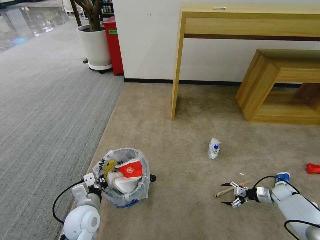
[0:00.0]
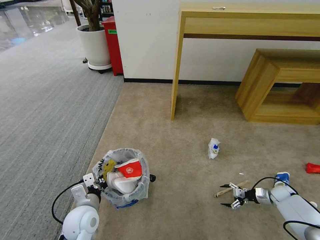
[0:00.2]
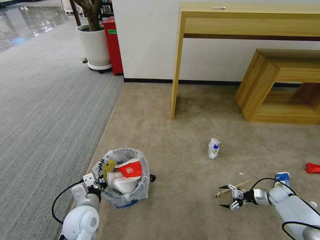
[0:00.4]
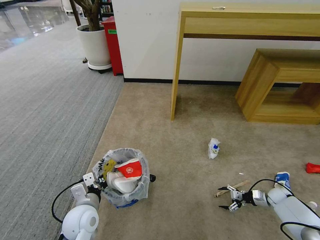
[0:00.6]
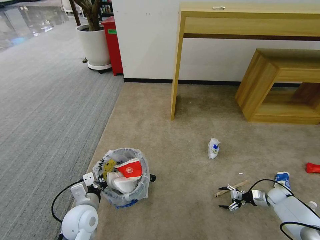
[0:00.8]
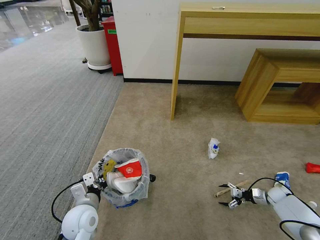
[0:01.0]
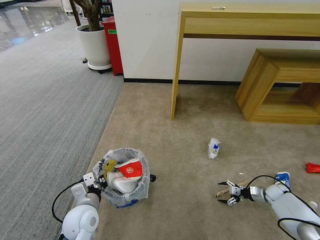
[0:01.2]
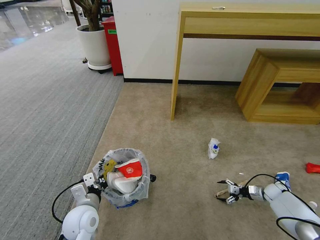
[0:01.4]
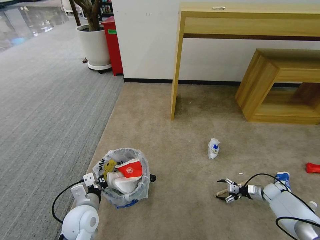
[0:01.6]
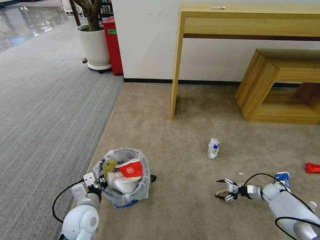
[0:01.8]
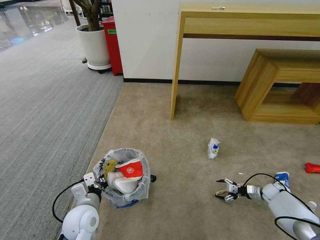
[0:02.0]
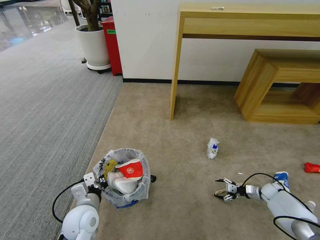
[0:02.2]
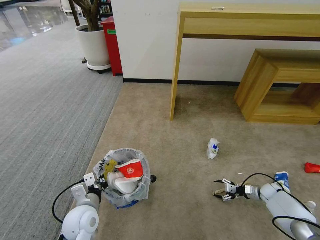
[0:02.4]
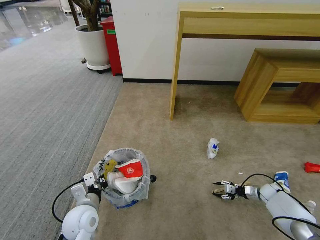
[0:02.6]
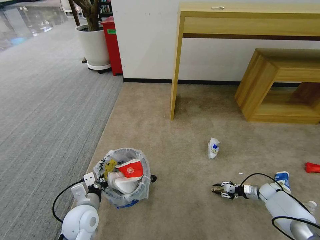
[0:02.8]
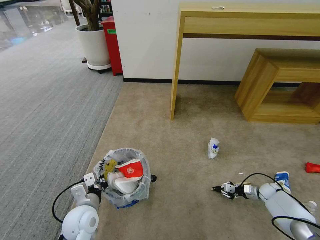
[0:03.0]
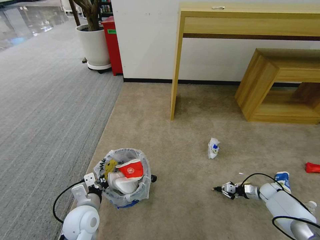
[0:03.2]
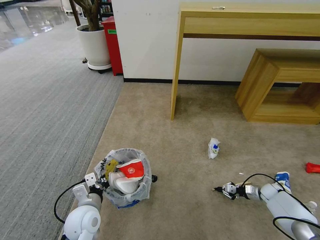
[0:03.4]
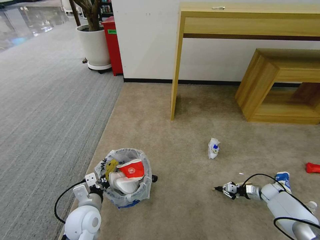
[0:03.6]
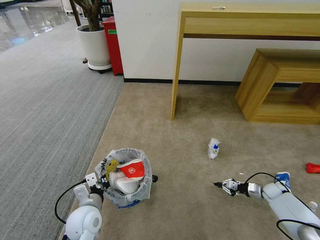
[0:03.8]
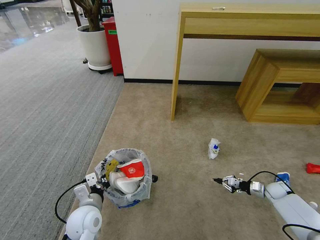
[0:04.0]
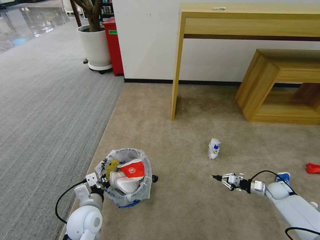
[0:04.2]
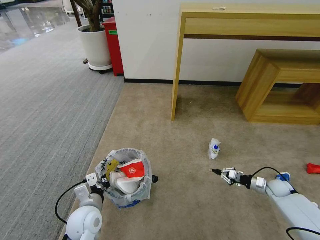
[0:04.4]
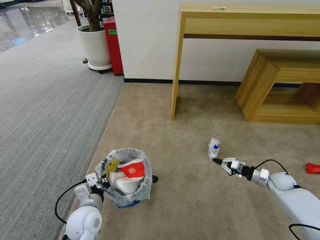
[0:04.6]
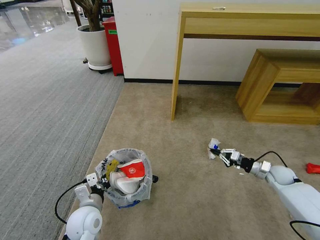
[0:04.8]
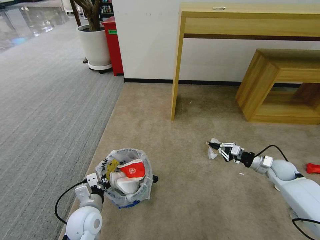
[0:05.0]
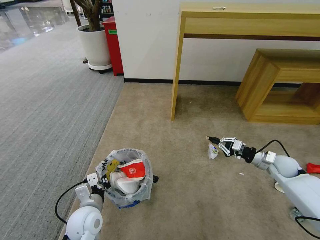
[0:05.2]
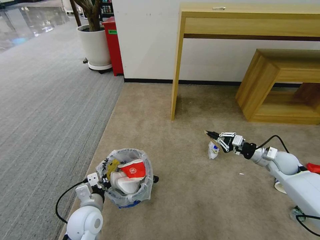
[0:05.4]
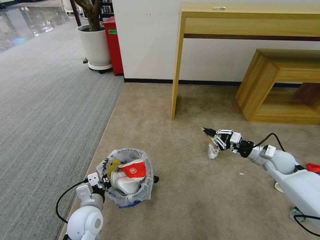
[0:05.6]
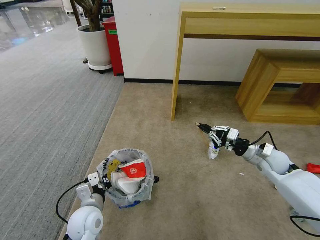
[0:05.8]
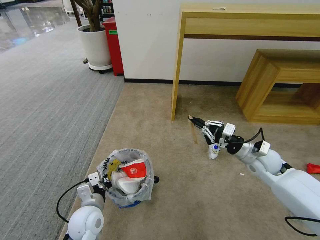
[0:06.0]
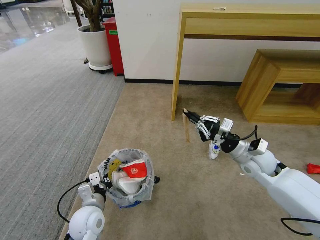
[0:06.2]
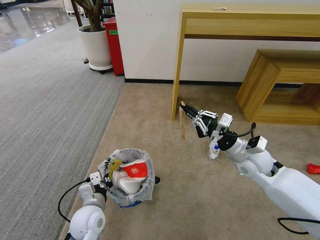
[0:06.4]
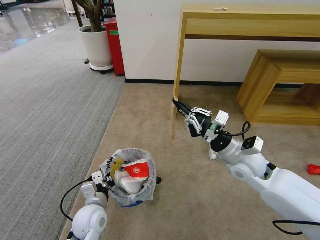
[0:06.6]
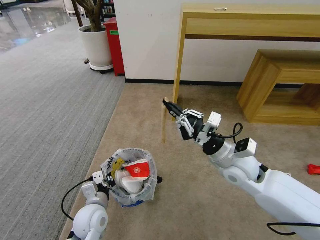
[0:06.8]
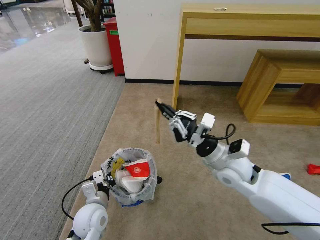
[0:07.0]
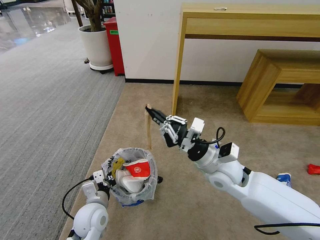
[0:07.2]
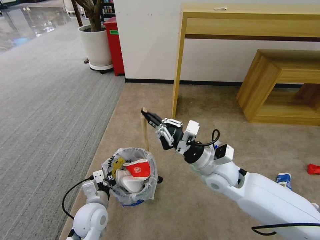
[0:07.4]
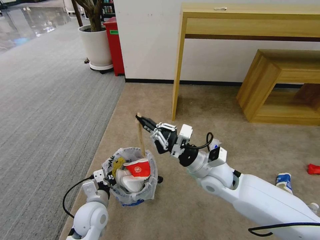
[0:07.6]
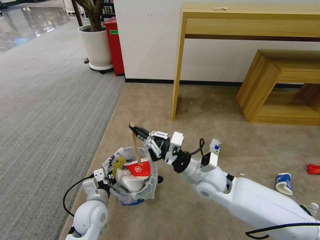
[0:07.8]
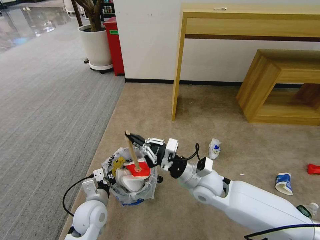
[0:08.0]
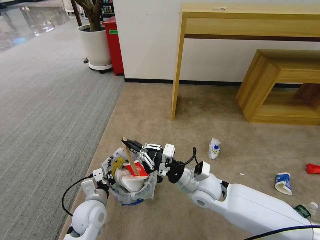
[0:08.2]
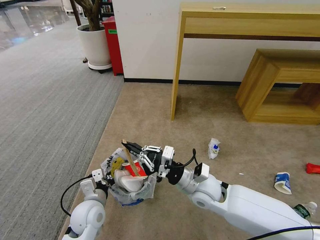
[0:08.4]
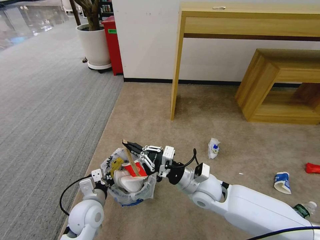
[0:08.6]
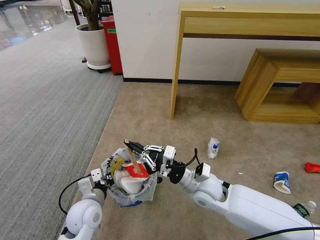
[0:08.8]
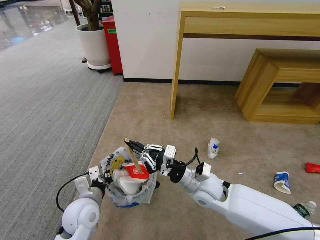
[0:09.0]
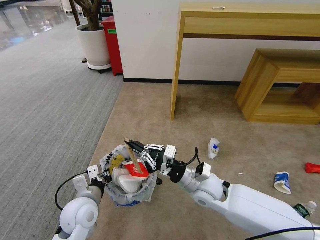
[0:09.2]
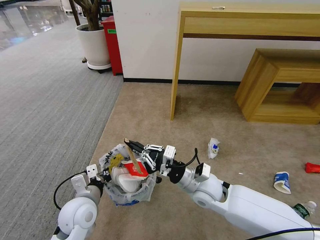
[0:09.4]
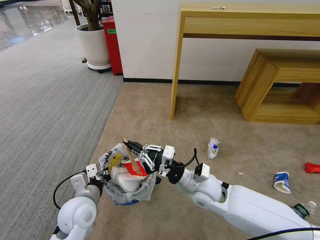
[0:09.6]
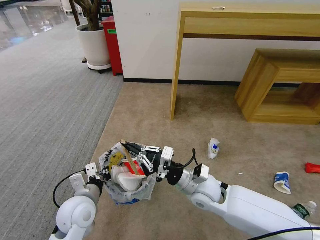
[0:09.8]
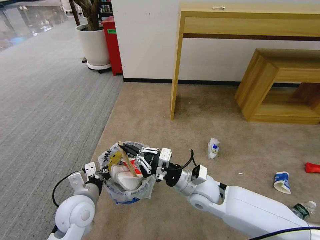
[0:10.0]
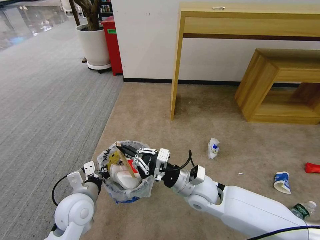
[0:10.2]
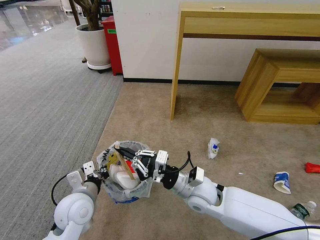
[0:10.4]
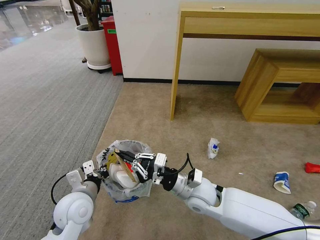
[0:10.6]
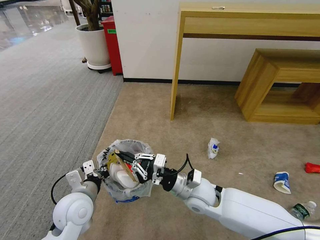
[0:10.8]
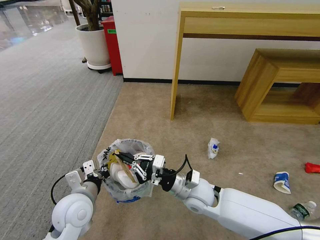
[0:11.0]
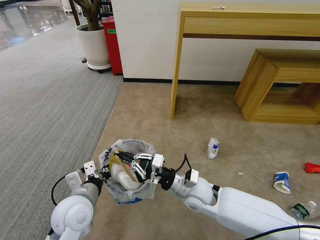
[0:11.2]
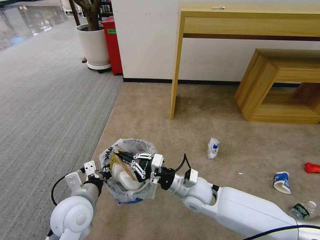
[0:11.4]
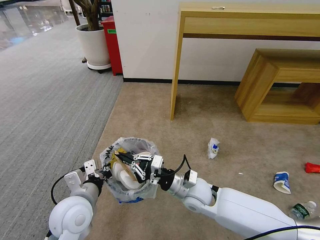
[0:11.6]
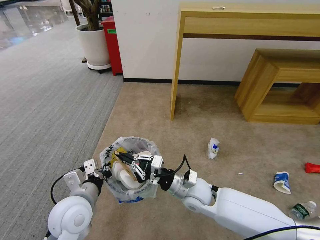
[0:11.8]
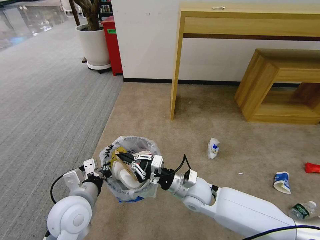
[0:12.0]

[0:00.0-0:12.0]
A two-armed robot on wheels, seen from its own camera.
Task of the whole recording: Pick up the trash bin and place the garbage on the floor into it.
0:00.0 to 0:01.6: The grippers stay close to where they were, moving slightly.
0:01.6 to 0:03.0: The right gripper closes its fingers.
0:03.0 to 0:04.4: The right gripper is displaced upward by about 5 cm.
0:04.4 to 0:06.0: The right gripper shifts about 25 cm upward and to the left.
0:06.0 to 0:07.6: The right gripper moves to the left, some 20 cm.
0:07.6 to 0:09.0: The right gripper changes place by some 5 cm.
0:09.0 to 0:10.4: There are only small adjustments of the grippers.
0:10.4 to 0:12.0: The grippers move only a little.

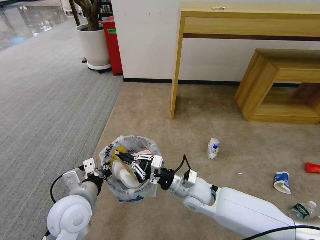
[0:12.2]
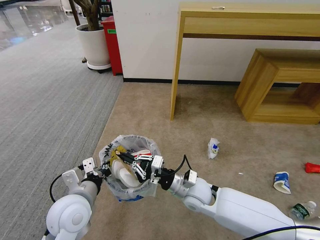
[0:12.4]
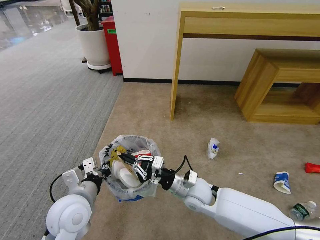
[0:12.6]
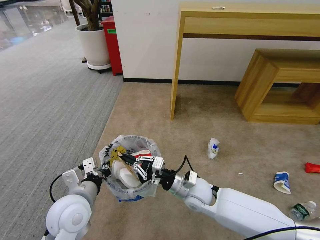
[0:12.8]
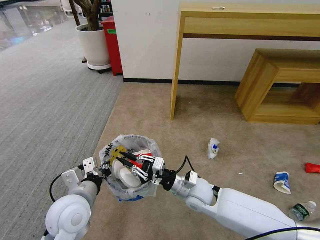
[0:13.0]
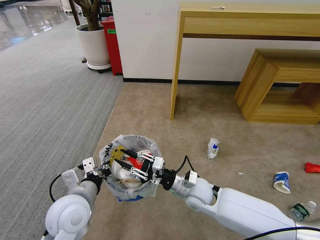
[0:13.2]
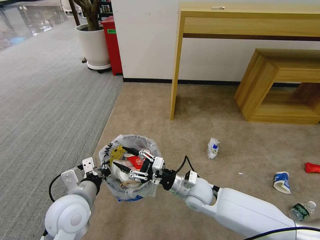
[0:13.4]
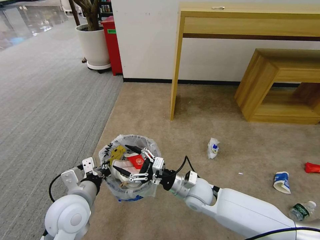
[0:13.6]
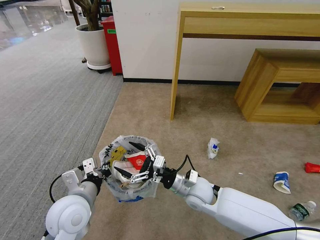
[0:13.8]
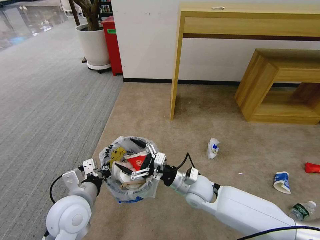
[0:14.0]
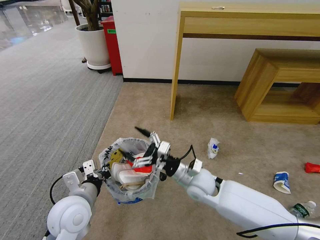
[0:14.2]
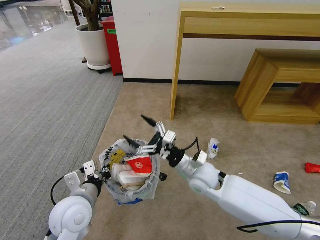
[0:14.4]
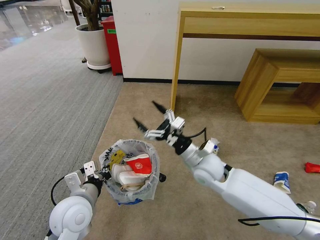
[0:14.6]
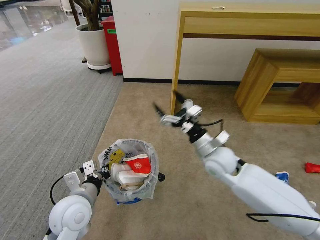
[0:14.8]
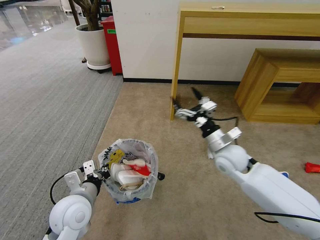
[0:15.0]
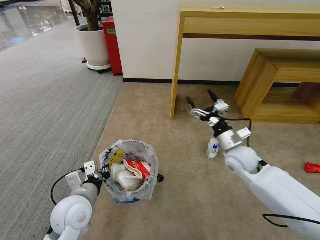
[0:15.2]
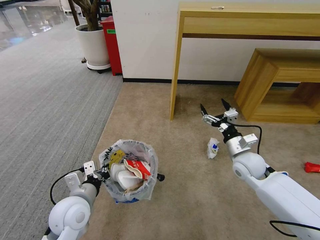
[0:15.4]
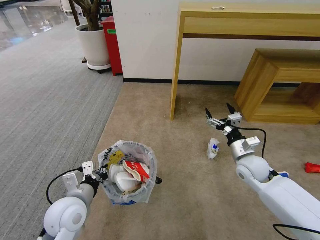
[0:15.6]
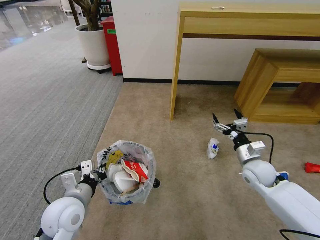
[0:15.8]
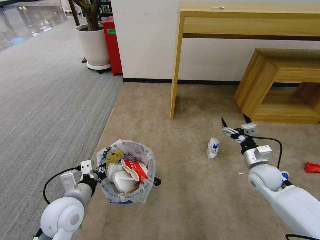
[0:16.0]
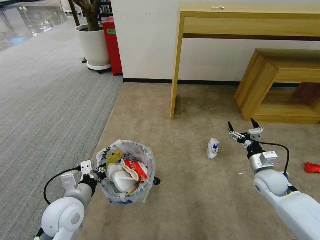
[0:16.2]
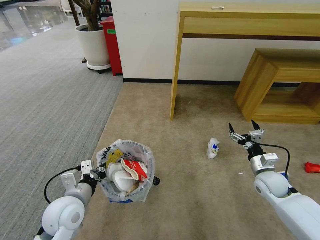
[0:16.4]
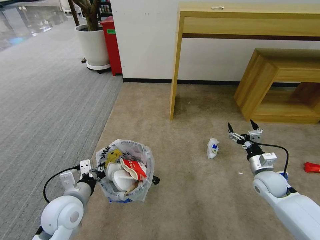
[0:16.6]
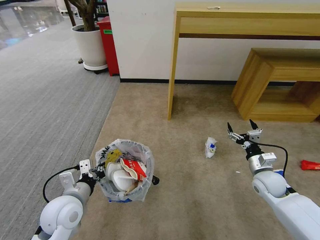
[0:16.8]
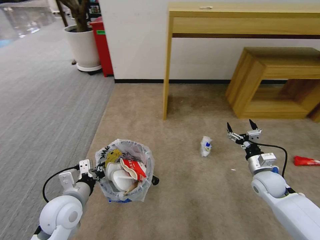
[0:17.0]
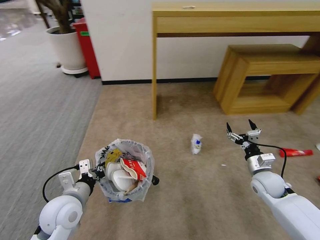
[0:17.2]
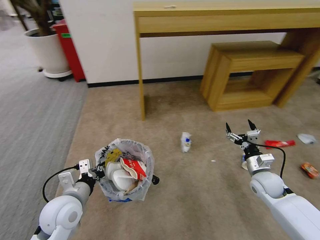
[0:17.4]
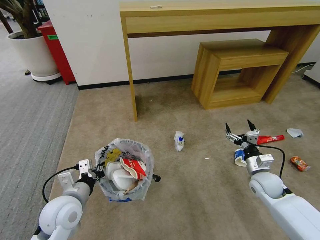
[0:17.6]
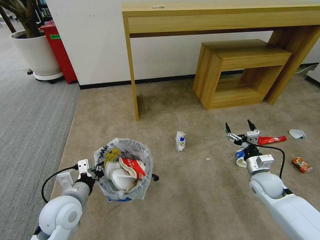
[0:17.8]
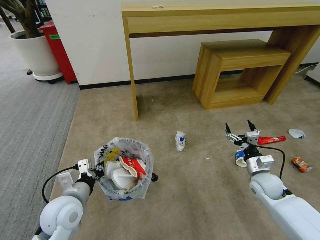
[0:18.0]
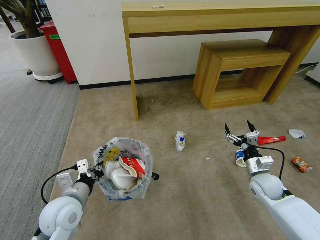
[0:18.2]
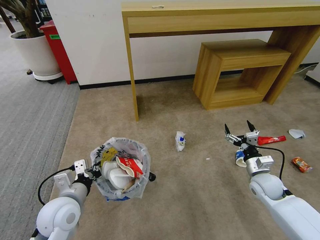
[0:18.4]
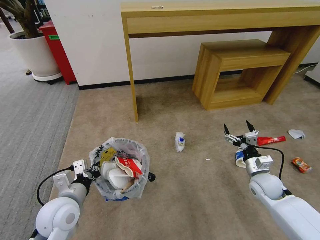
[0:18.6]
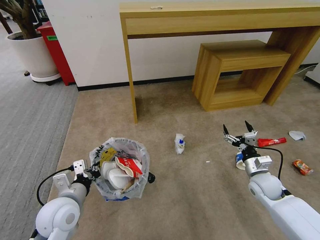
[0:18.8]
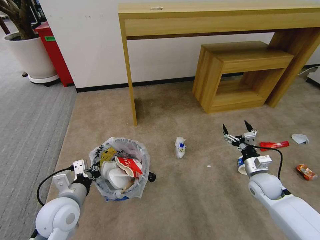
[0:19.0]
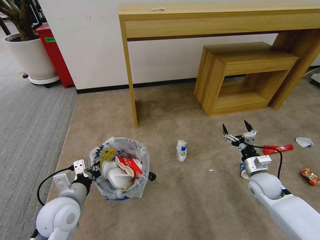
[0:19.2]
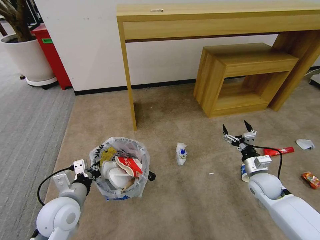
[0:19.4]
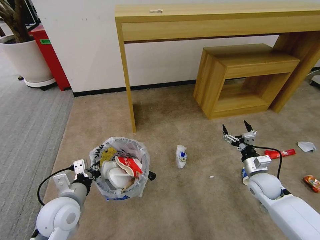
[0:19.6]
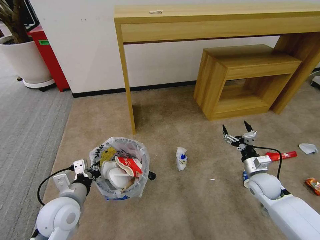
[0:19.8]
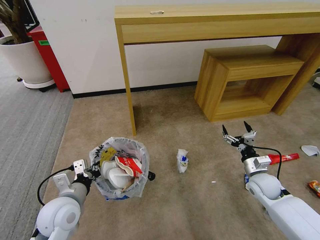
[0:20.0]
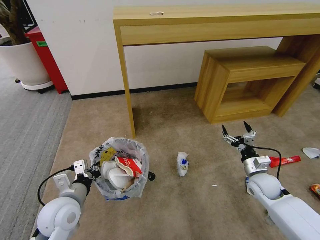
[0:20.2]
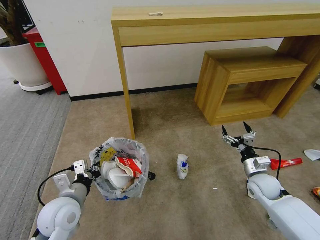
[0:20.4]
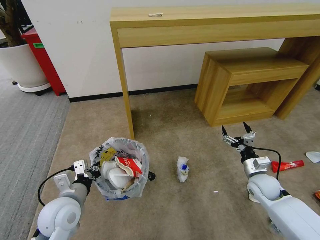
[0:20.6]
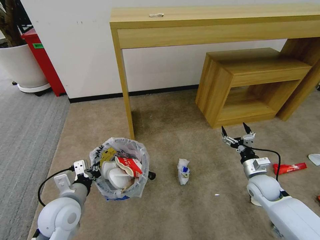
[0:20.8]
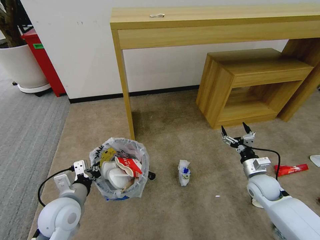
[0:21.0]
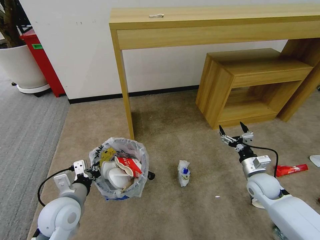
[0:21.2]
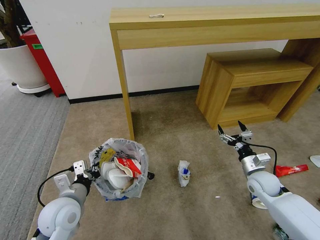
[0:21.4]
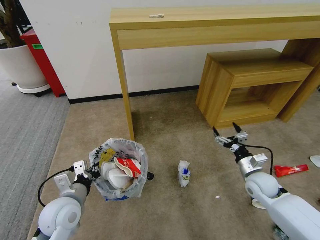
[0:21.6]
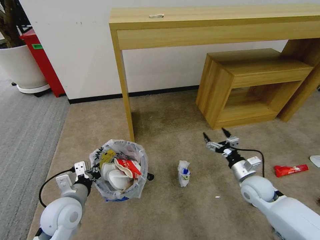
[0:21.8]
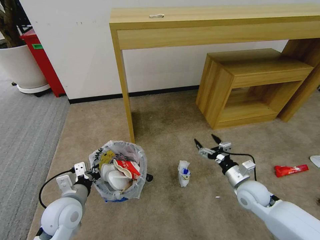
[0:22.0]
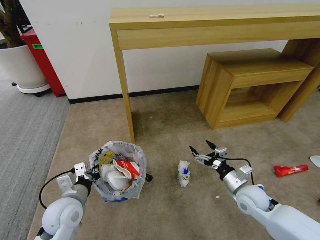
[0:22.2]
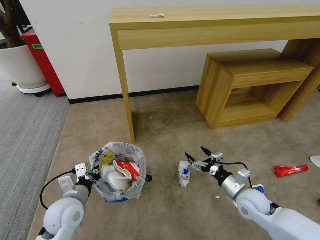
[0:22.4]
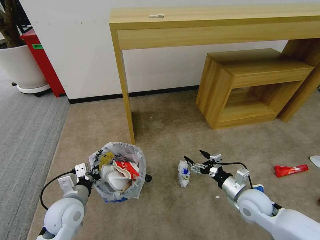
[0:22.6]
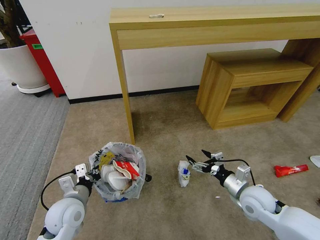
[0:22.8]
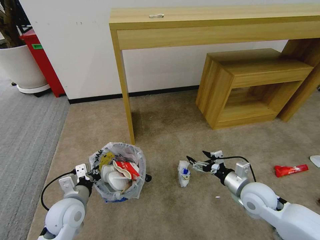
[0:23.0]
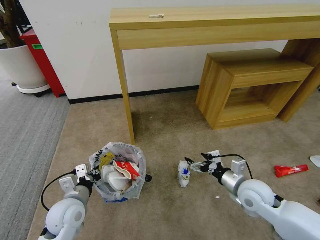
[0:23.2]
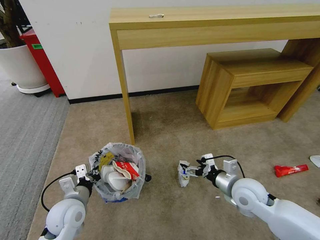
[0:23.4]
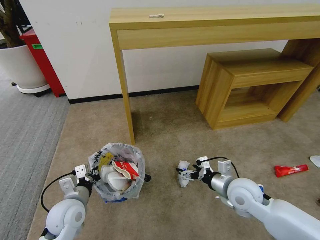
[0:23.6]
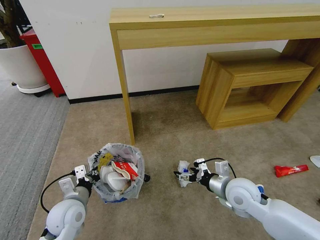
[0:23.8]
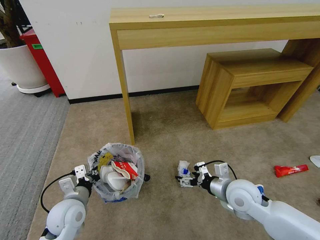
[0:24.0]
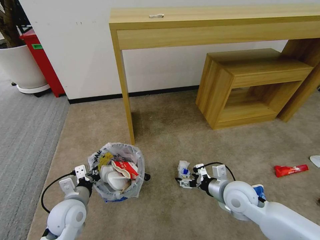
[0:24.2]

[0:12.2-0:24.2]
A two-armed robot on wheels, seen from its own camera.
Task of the whole recording: Pick up the trash bin and place the garbage on the floor into it.
0:12.2 to 0:13.8: The right gripper opens its fingers.
0:13.8 to 0:15.2: The right gripper is displaced to the right, forward and upward by about 20 cm.
0:15.2 to 0:16.6: The right gripper moves to the right and downward, approximately 15 cm.
0:21.2 to 0:22.6: The right gripper is displaced to the left and backward by roughly 10 cm.
0:22.6 to 0:24.2: The right gripper moves to the left, approximately 5 cm.
